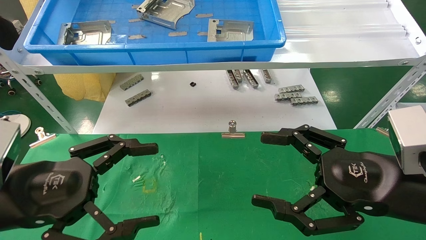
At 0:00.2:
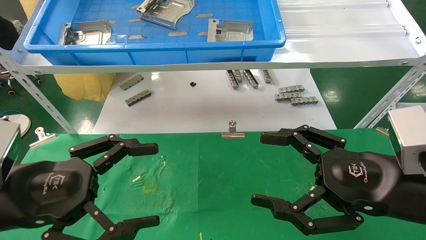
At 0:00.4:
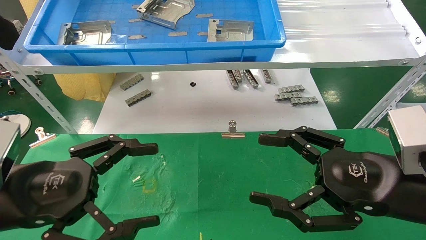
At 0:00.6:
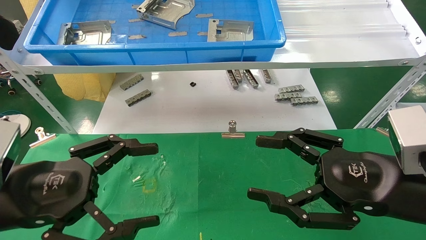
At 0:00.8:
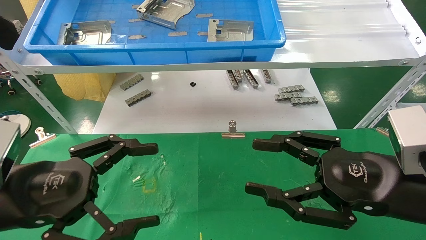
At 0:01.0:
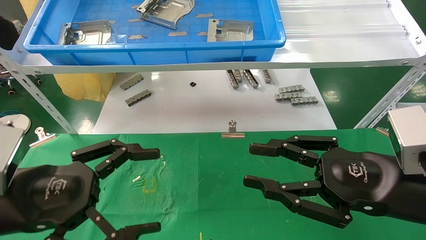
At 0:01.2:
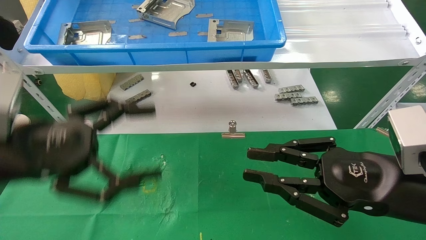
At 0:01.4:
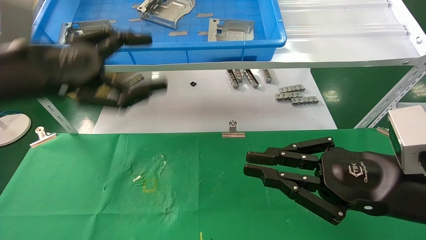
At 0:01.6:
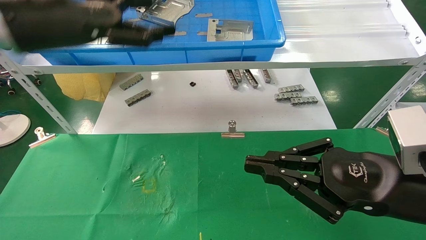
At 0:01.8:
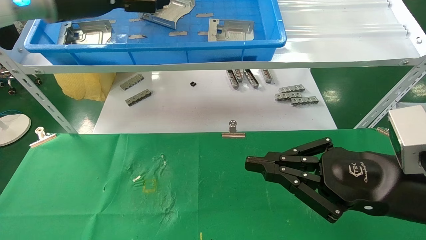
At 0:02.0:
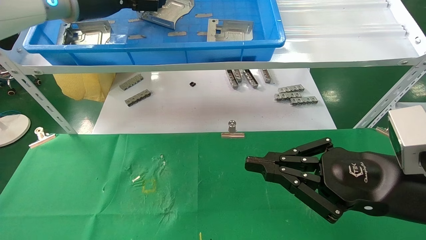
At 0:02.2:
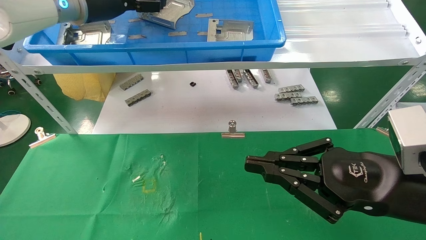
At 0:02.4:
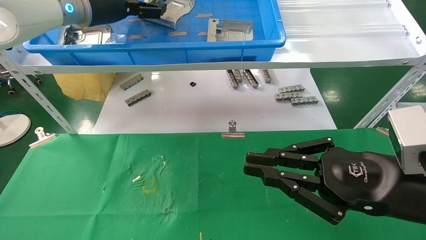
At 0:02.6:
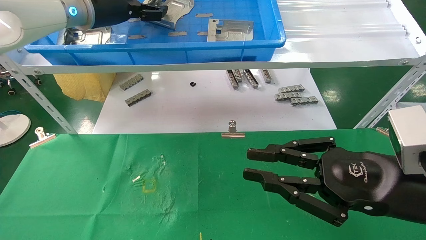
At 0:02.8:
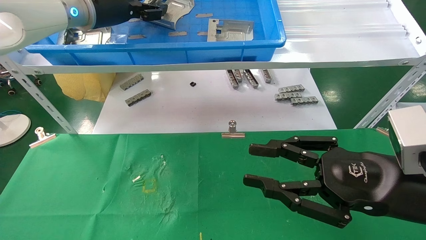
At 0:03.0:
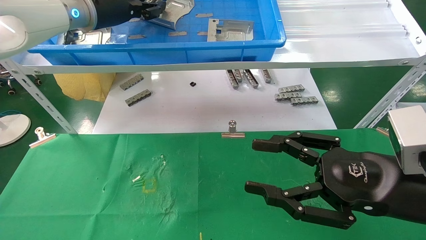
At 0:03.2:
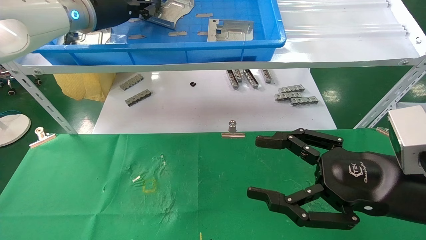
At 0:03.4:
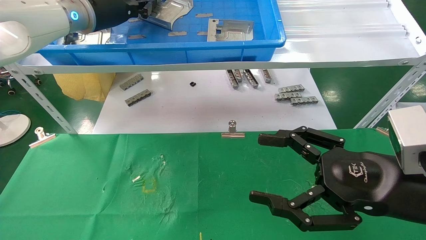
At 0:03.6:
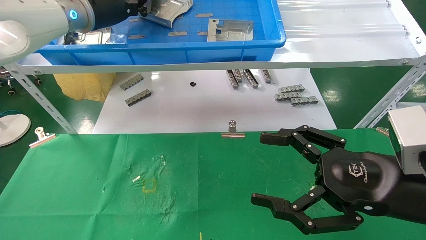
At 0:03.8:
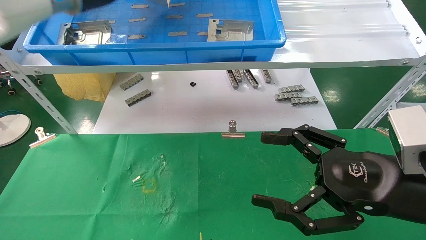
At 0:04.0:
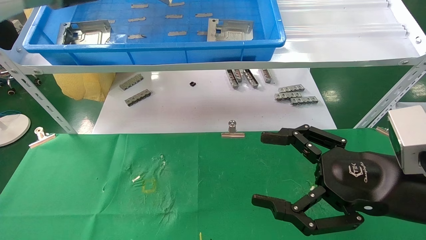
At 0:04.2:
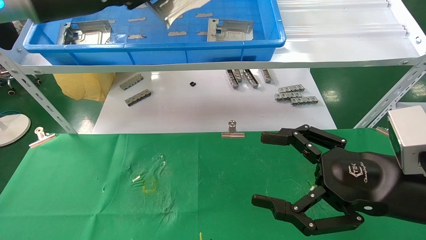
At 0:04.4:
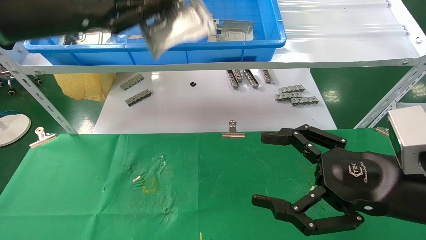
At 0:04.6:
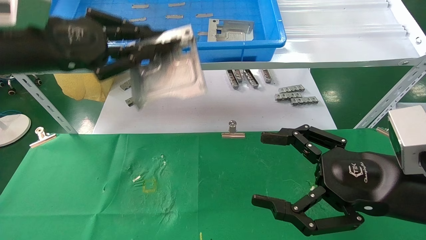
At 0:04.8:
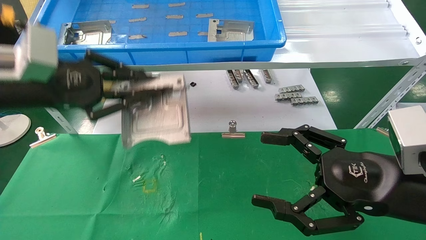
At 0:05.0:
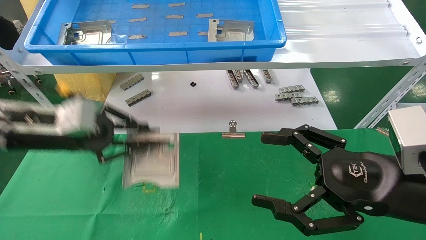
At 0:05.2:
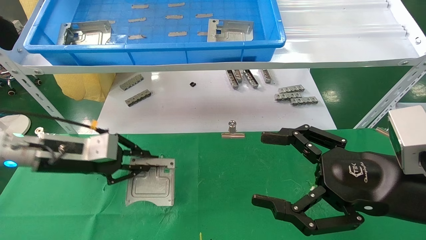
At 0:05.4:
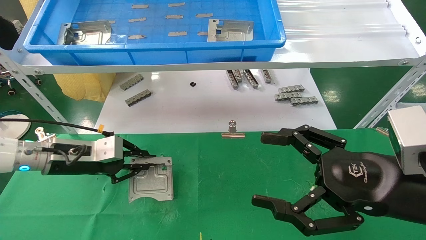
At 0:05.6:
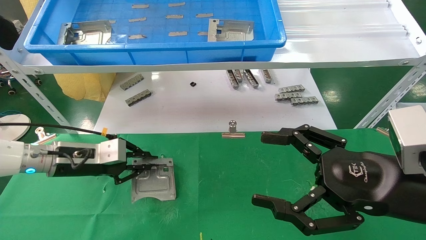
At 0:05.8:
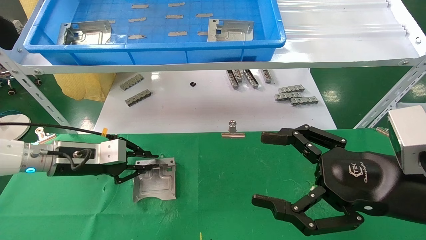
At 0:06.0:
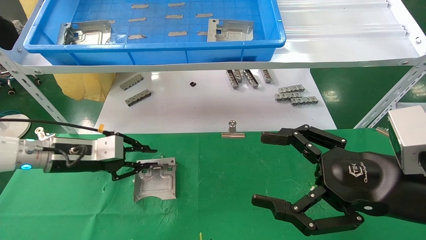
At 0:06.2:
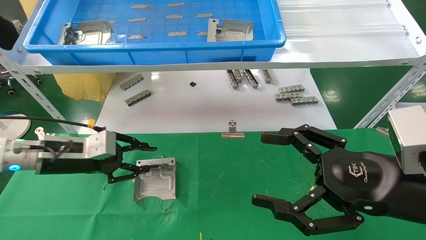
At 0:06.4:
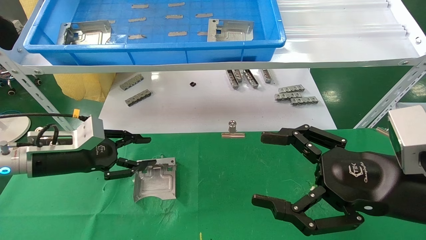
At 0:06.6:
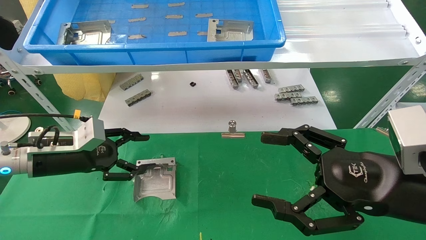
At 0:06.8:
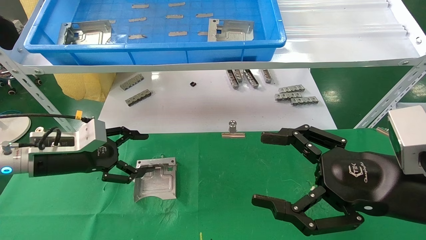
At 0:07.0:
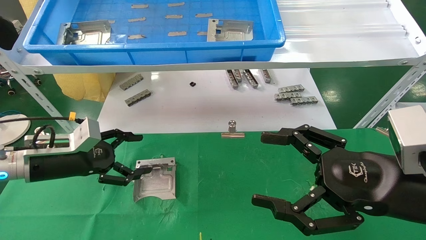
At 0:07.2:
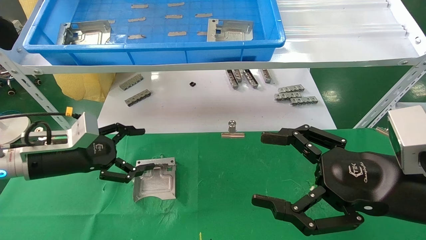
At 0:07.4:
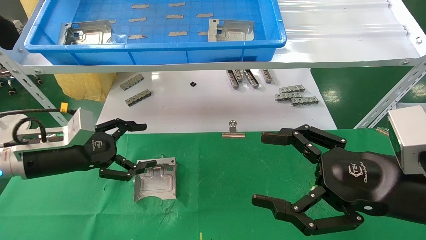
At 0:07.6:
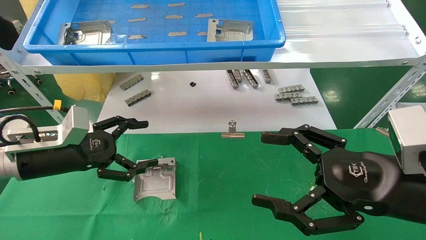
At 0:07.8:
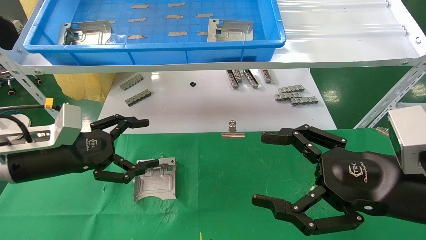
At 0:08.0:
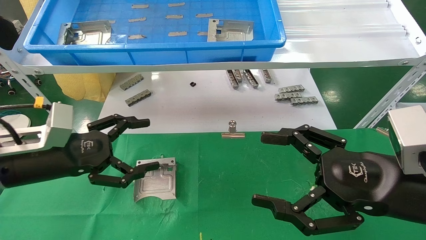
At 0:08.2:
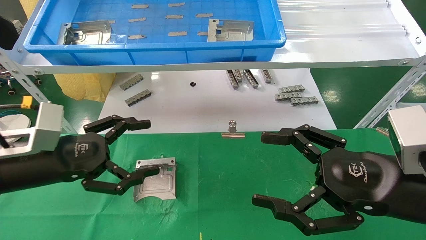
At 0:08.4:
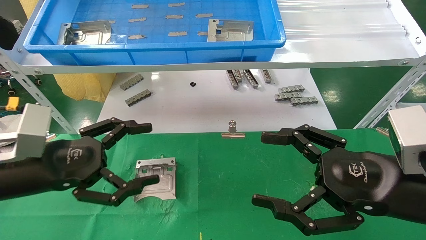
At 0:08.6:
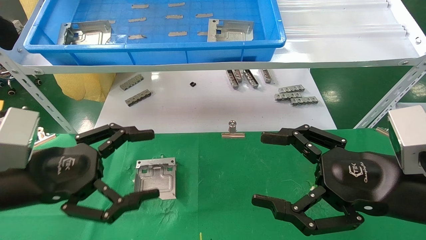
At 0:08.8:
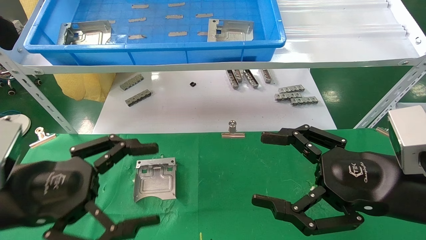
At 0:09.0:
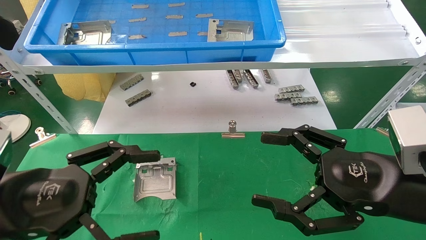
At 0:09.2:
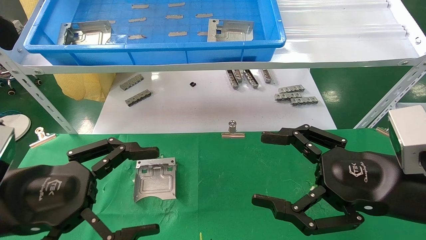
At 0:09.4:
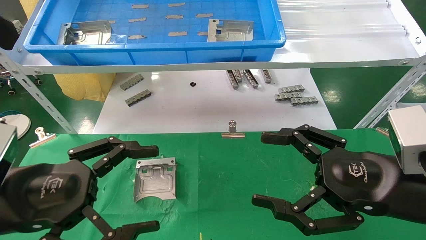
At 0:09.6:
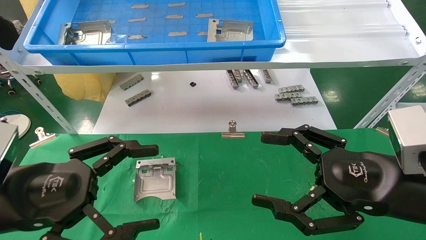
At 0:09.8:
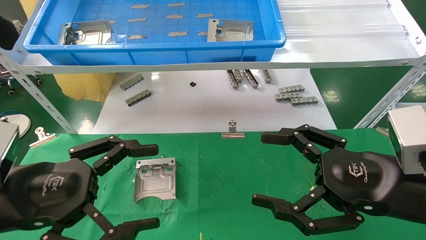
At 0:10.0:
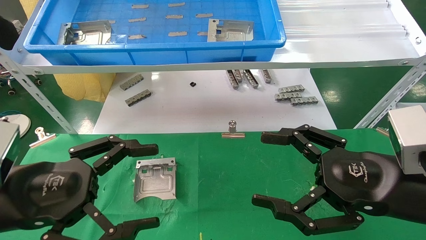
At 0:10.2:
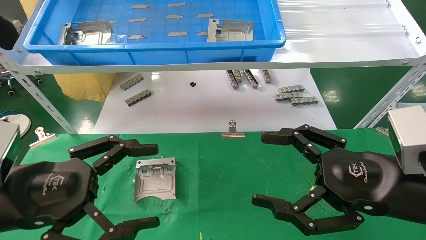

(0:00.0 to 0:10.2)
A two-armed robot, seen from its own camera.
Task of the whole recording: use the mechanical arm to pick up the parts and place them on the table.
Step, 0:01.4 - 0:03.2: Pick up the hard drive bracket from the feeding area.
Step, 0:03.4 - 0:06.2: Place the hard drive bracket into the box.
0:00.0 - 0:01.4: The left gripper shifts approximately 15 cm upward and forward, while the right gripper closes.
0:01.4 - 0:03.0: The left gripper goes approximately 20 cm forward and upward, and closes up.
0:03.0 - 0:04.4: The right gripper opens. The left gripper goes roughly 10 cm backward, and closes.
0:04.4 - 0:05.8: The left gripper shifts roughly 25 cm downward.
0:05.8 - 0:07.2: The left gripper opens up.
0:07.2 - 0:08.8: The left gripper travels backward by roughly 15 cm.
0:08.8 - 0:10.2: The grippers move only a little.
